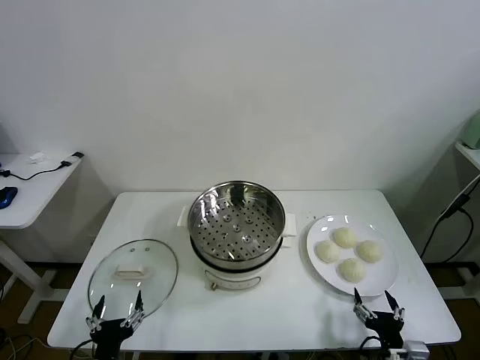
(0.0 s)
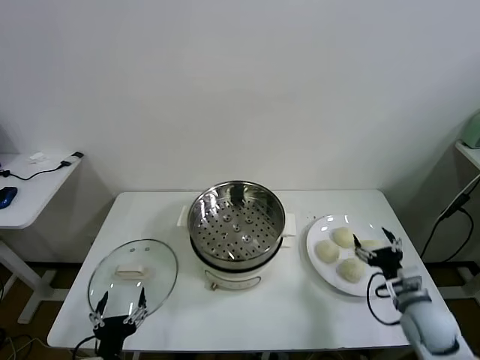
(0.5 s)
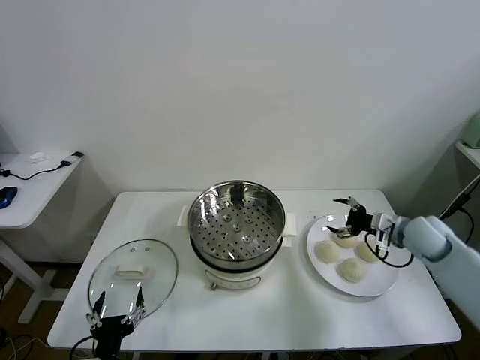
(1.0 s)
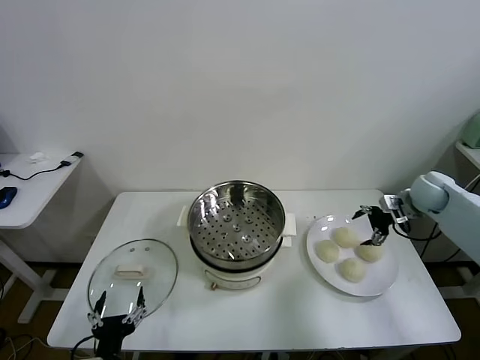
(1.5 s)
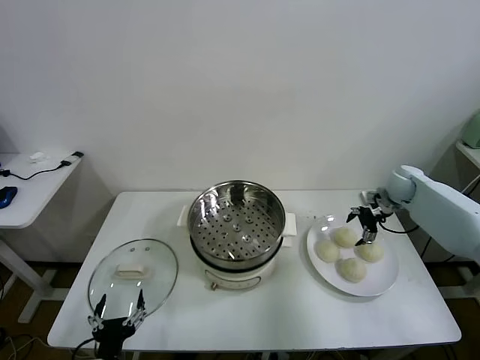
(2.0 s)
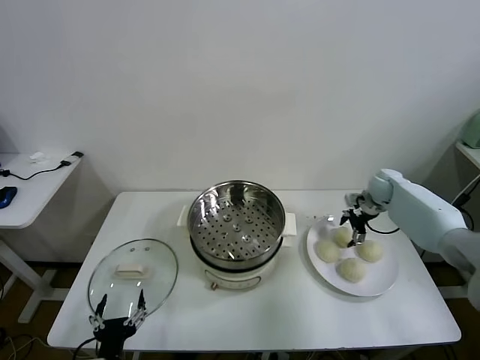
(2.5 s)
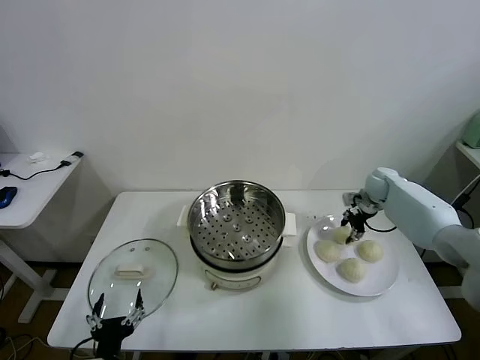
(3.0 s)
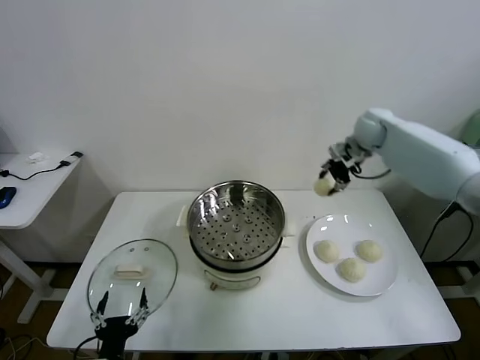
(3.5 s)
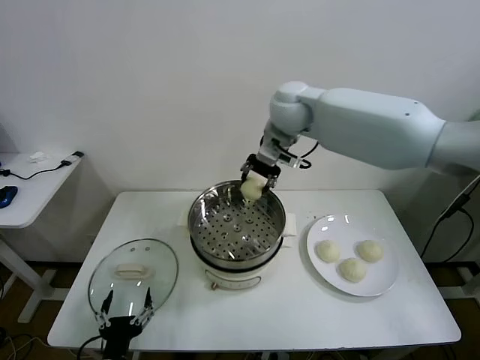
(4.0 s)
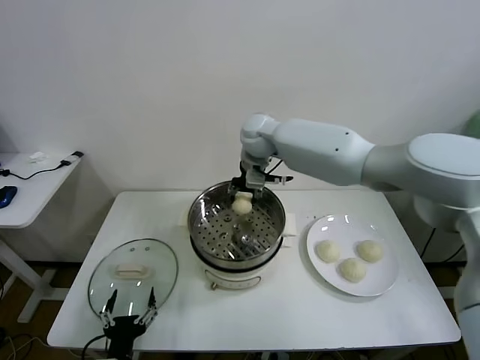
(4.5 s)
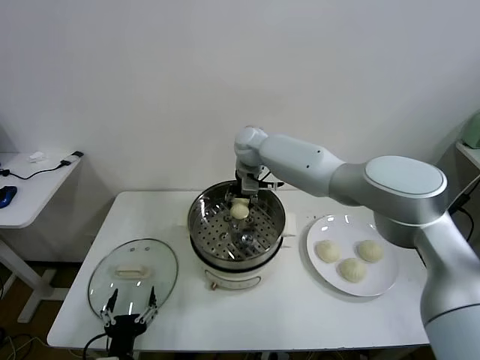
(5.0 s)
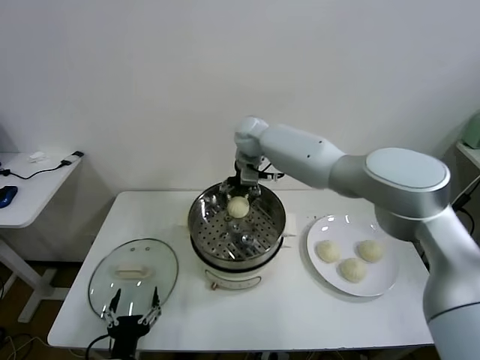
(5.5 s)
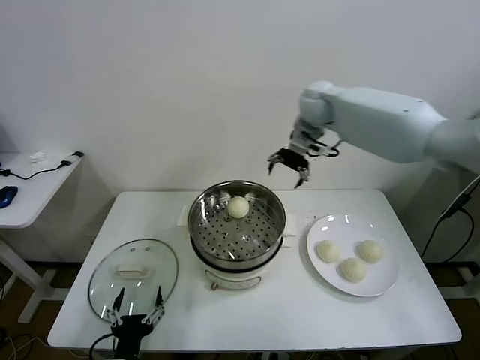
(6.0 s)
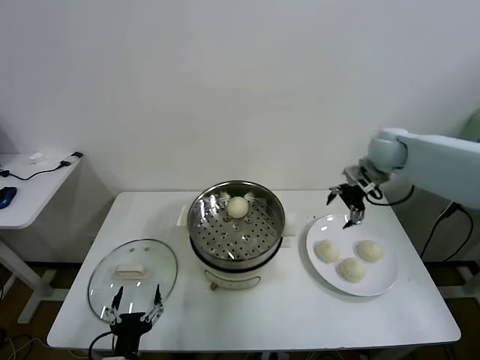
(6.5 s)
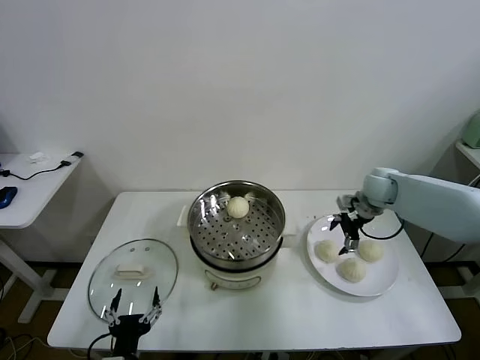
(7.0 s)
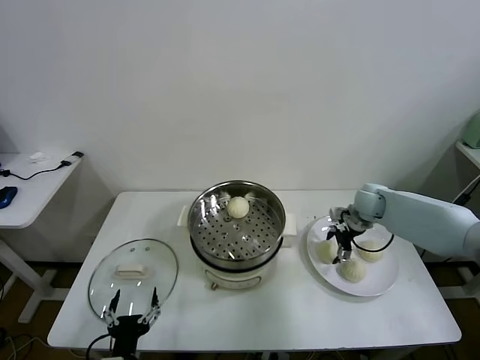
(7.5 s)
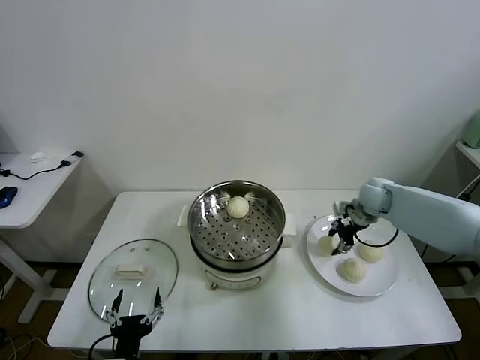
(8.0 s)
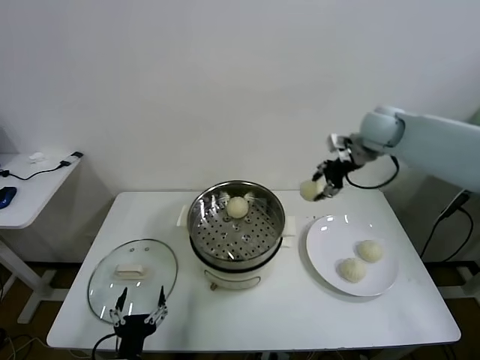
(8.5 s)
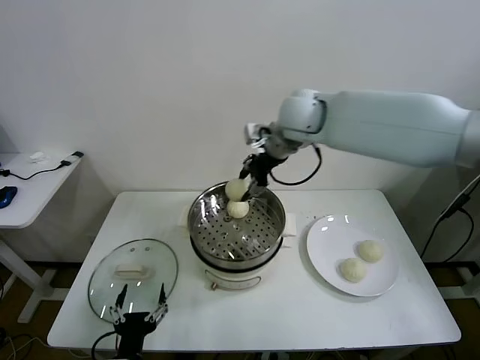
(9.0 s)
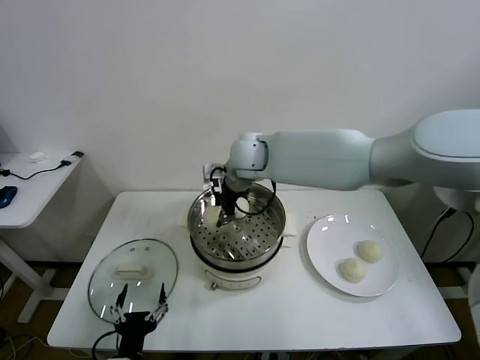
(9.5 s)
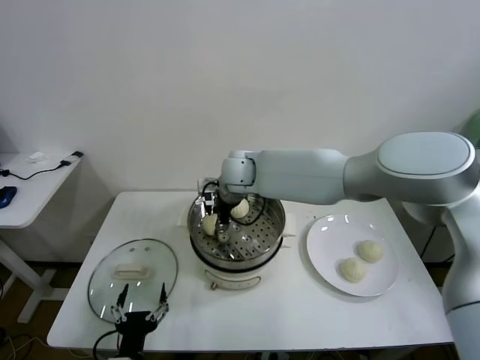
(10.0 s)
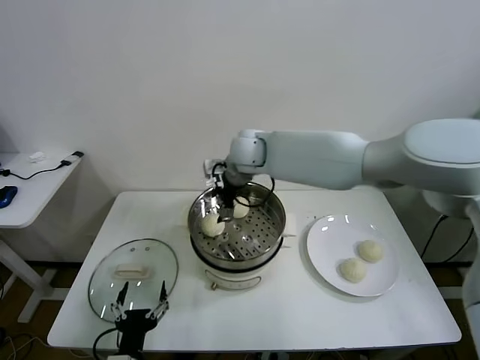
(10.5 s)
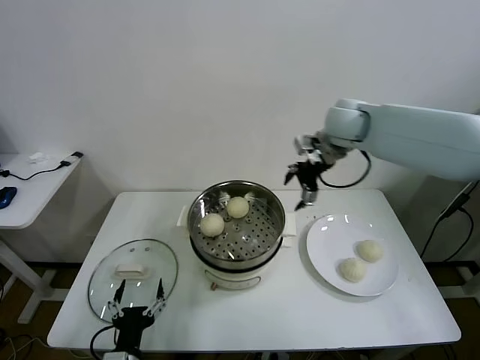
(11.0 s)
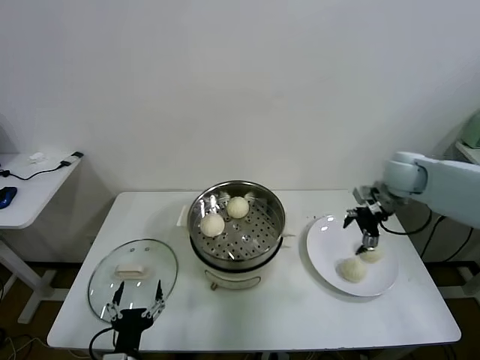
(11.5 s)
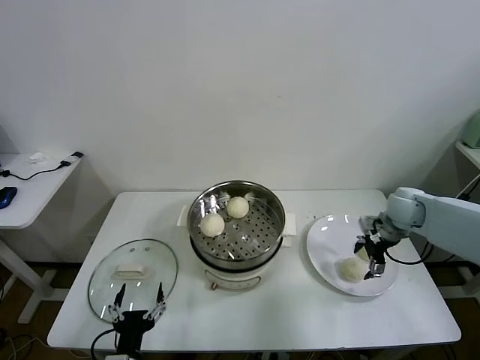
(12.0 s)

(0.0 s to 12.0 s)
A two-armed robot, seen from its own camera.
Task of the whole recording: take steamed baozi put them in steamer.
Step, 0.0 s - 2.5 s: Grasp the baozi in the plate with right gripper.
Step, 3.0 s - 5.5 s: Place the baozi on the steamer with right gripper.
Step, 6.0 s - 7.5 s: Grasp the baozi in the plate with right gripper.
Step, 8.0 s - 10.0 s: Place the baozi on the steamer with right gripper.
2.0 s - 4.0 s: The right gripper shifts some 40 cm to the left and upward, and closes.
4.0 s - 6.0 s: The right gripper is displaced to the right and forward by some 15 cm, and opens up.
6.0 s - 8.0 s: The right gripper travels downward and to the right by approximately 25 cm, and closes up.
8.0 s - 10.0 s: The right gripper heads to the left, covering some 35 cm.
10.0 s - 12.0 s: The right gripper moves to the right, approximately 40 cm, and opens up.

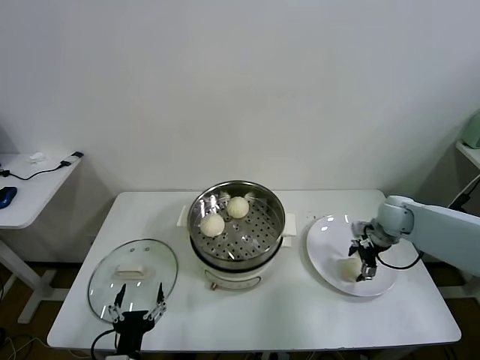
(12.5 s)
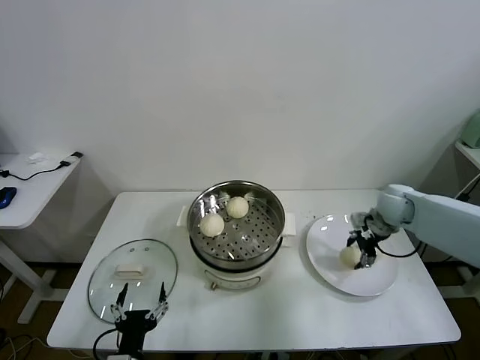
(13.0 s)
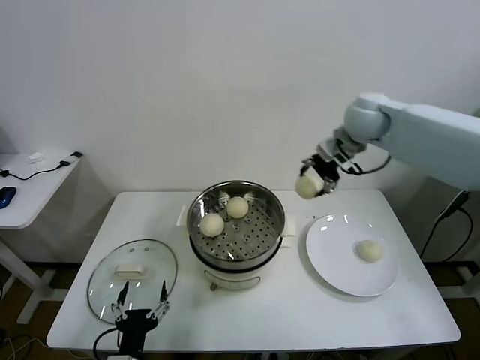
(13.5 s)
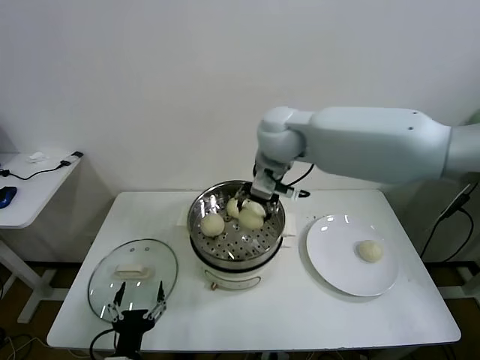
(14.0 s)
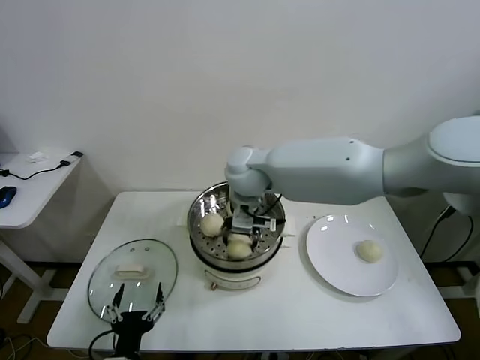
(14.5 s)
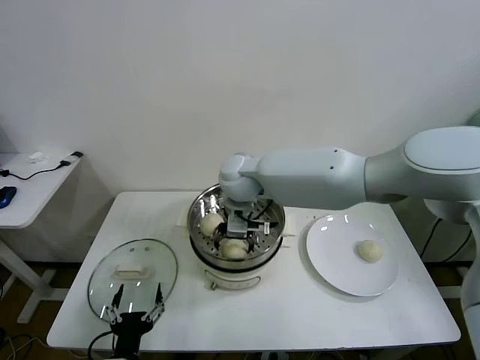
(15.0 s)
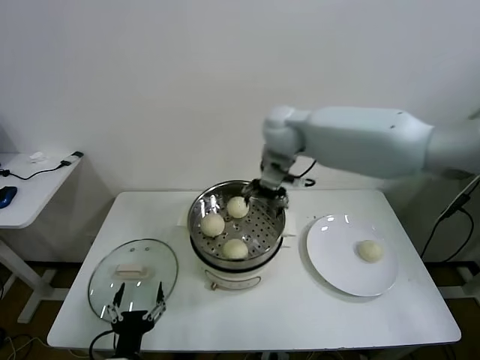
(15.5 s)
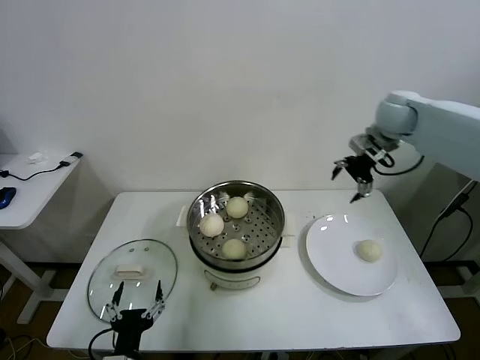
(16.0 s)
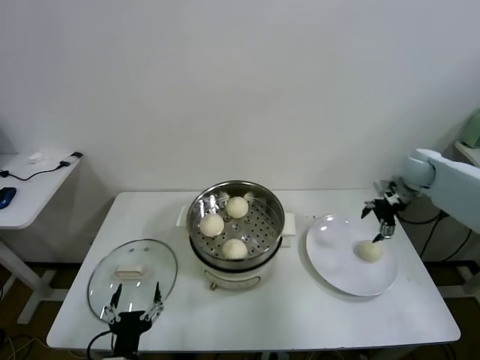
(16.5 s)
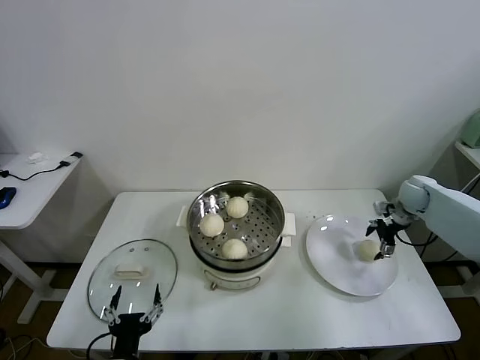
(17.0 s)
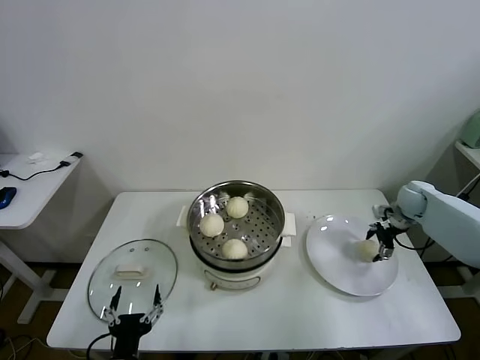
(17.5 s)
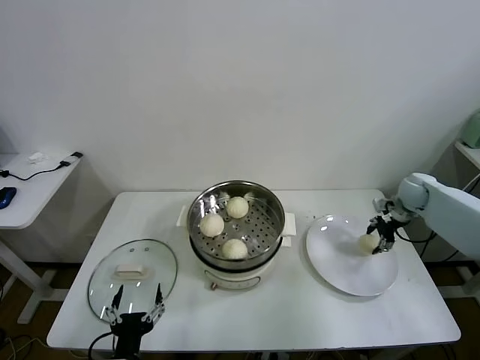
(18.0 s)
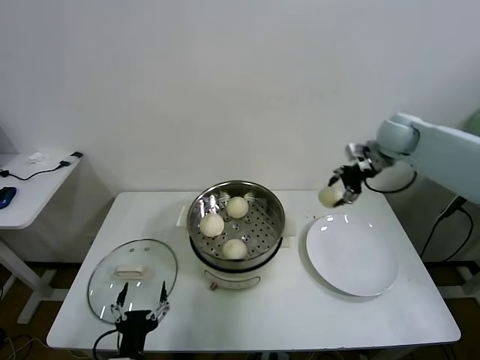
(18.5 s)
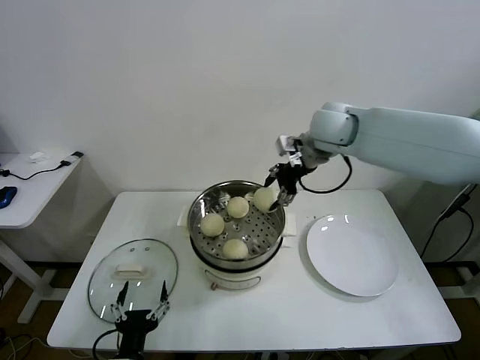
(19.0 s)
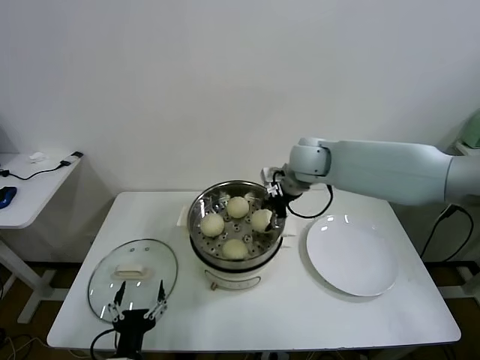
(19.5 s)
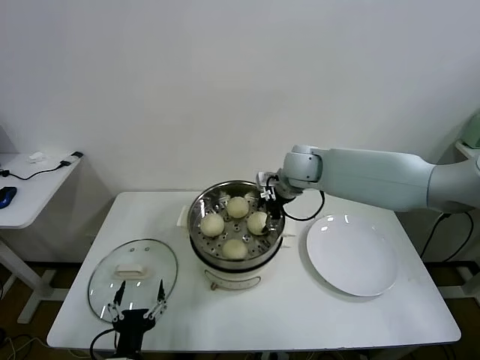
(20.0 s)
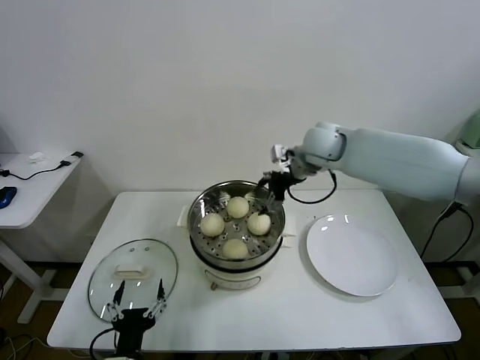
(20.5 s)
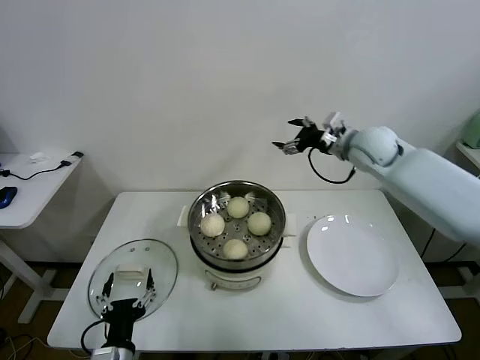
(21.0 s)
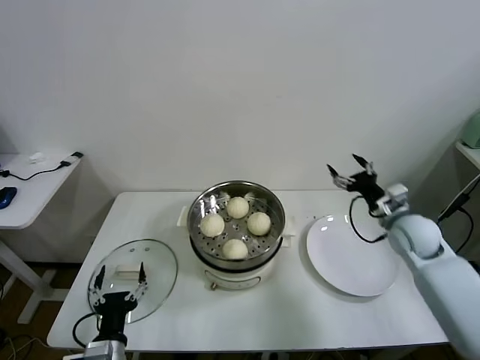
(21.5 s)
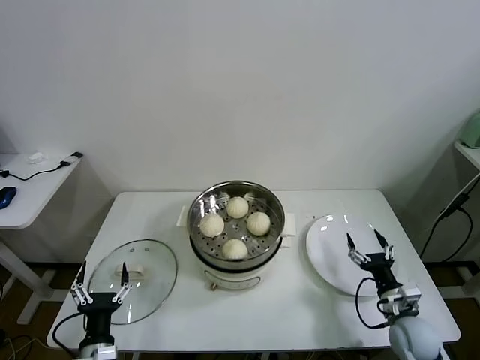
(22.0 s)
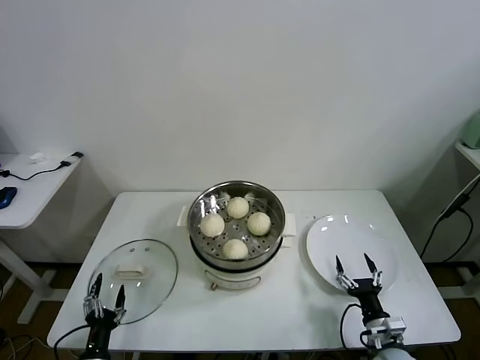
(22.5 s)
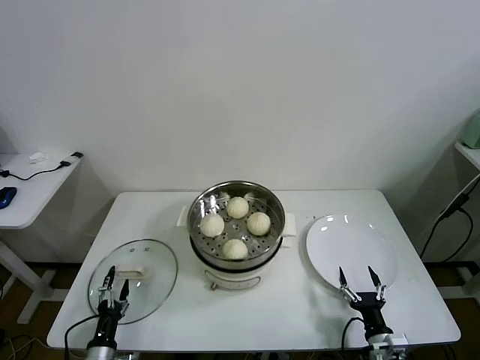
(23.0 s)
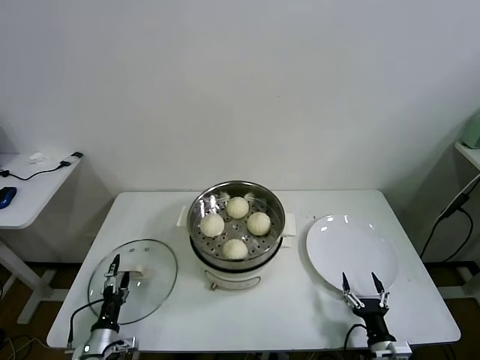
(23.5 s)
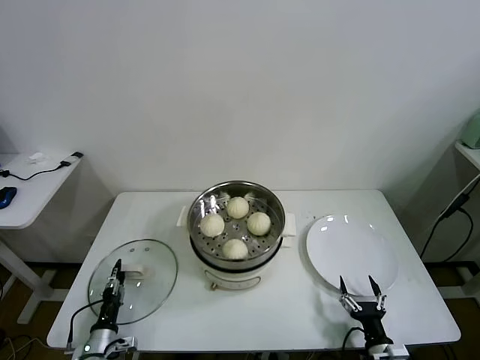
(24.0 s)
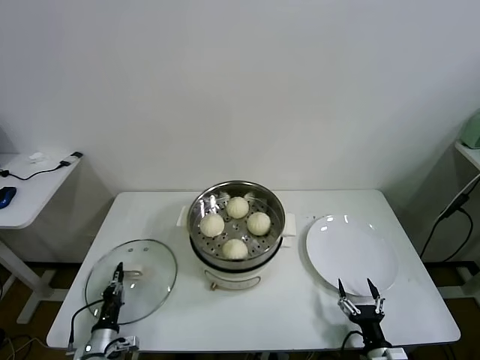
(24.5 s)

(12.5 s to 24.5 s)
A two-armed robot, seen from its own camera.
Task of the whole recording: take steamed baozi put them in steamer.
Step, 13.0 s - 15.0 s: Place the baozi on the steamer with right gripper.
Step, 15.5 s - 17.5 s: Grasp the baozi in the plate with right gripper.
Step, 18.0 s - 20.0 s: Place the baozi on the steamer with right gripper.
Step, 20.5 s - 24.0 s: Grasp the pot lid with left gripper.
12.5 s - 14.5 s: The right gripper shifts roughly 40 cm to the left and upward, and closes its fingers.
14.5 s - 16.5 s: The right gripper travels to the right by some 40 cm, and opens up.
16.5 s - 18.5 s: The right gripper goes approximately 15 cm upward and to the left, and closes up.
18.5 s - 20.5 s: The right gripper moves to the left, some 15 cm, and opens its fingers.
20.5 s - 22.5 s: The right gripper heads downward, backward and to the right, covering some 50 cm. Meanwhile the left gripper travels to the left and downward by about 15 cm.
22.5 s - 24.5 s: The right gripper shifts about 5 cm backward. The left gripper is displaced forward by roughly 5 cm, and closes up.

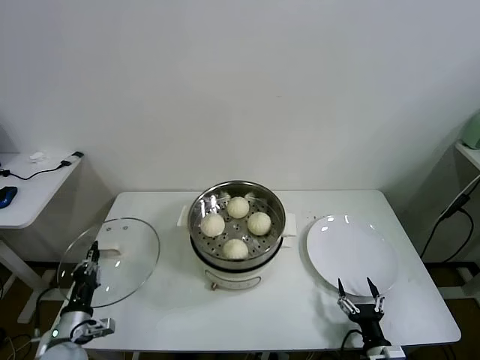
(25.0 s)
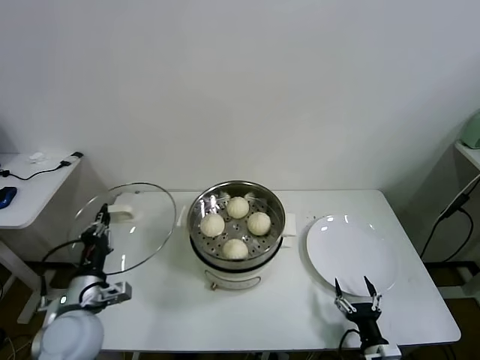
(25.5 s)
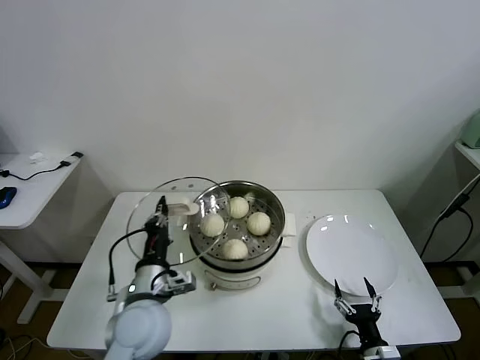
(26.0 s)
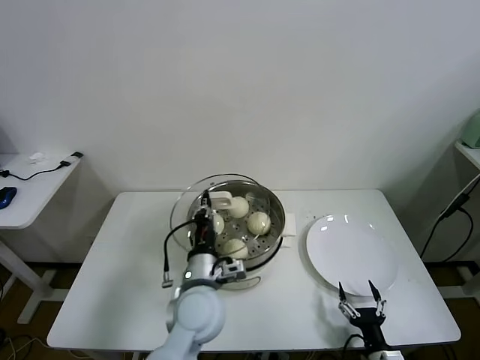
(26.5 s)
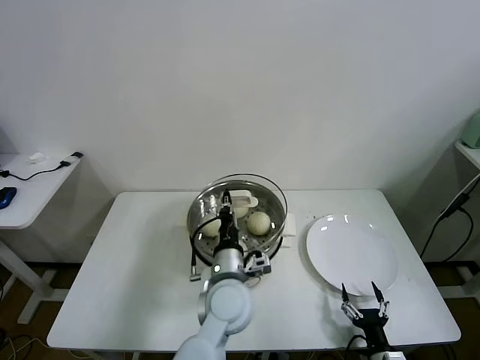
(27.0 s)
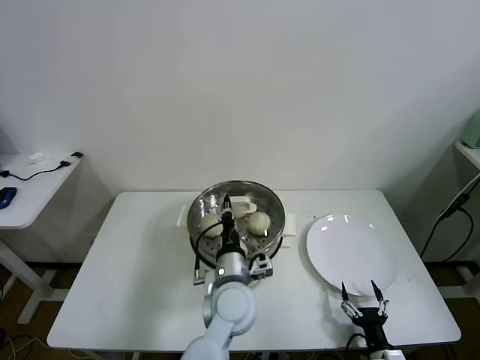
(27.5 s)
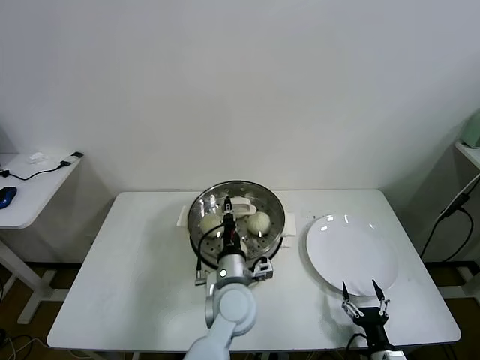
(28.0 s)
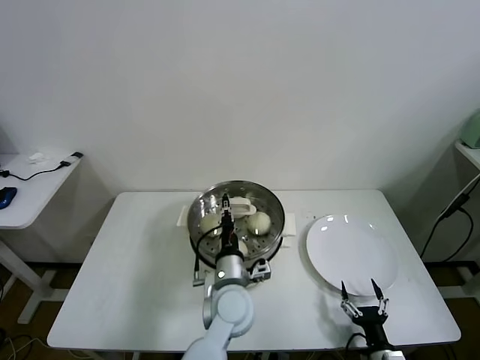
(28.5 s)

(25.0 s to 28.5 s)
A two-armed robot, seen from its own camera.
Task of the whole recording: take steamed baozi put them in steamer.
25.0 s - 27.0 s: The left gripper shifts approximately 35 cm to the right and upward.
27.0 s - 28.5 s: There are only small adjustments of the grippers.
